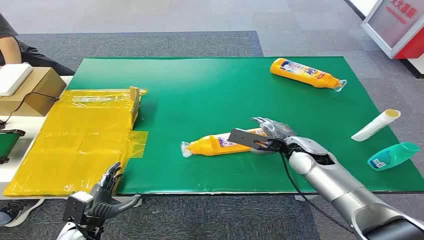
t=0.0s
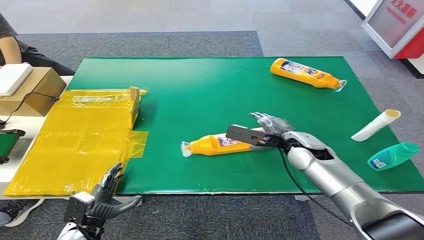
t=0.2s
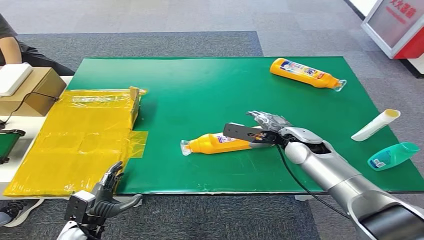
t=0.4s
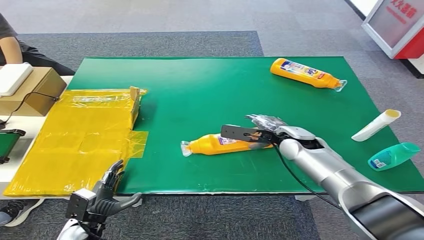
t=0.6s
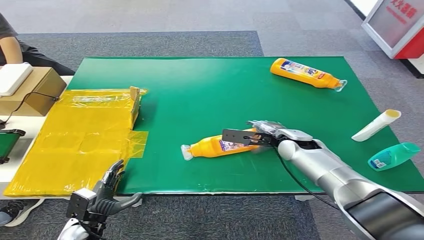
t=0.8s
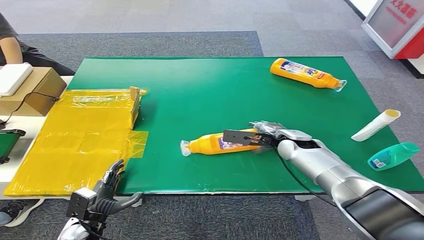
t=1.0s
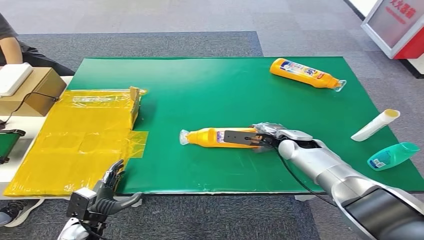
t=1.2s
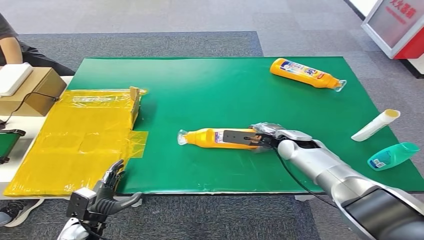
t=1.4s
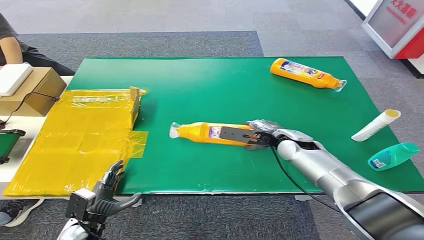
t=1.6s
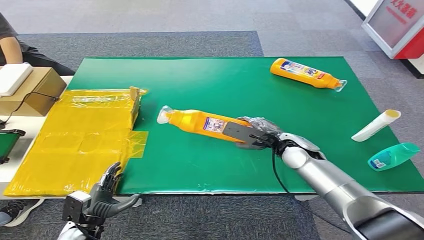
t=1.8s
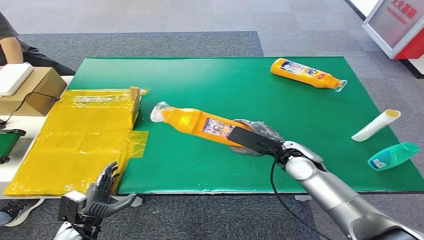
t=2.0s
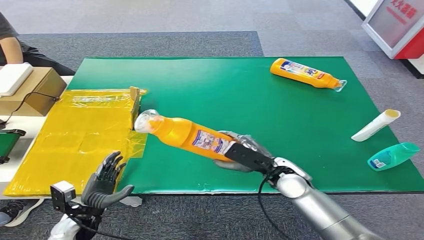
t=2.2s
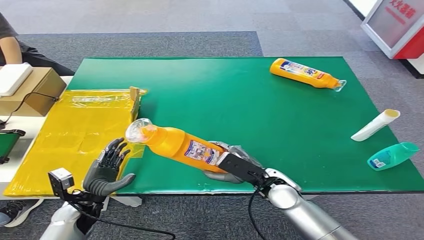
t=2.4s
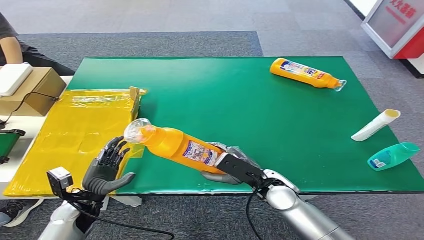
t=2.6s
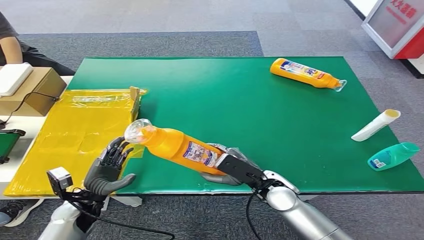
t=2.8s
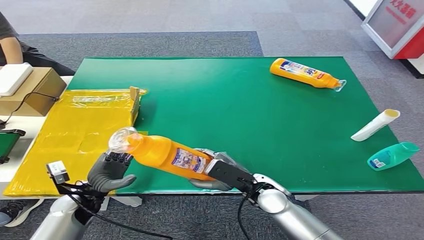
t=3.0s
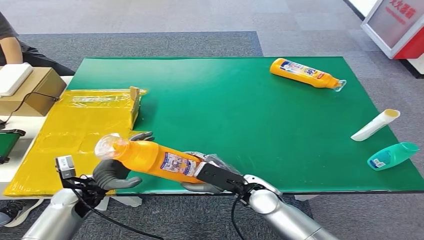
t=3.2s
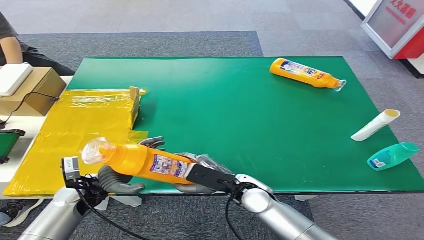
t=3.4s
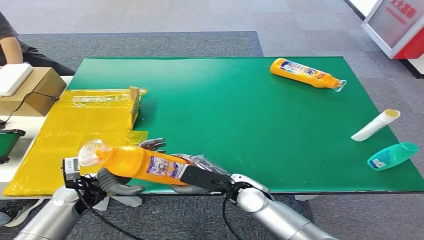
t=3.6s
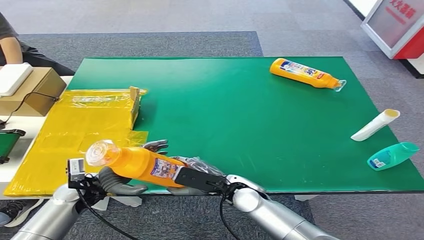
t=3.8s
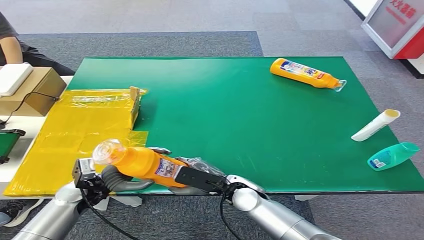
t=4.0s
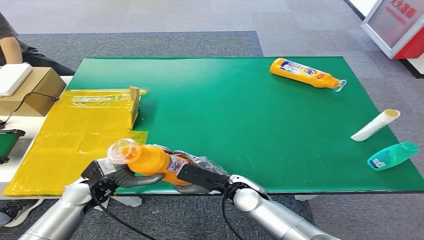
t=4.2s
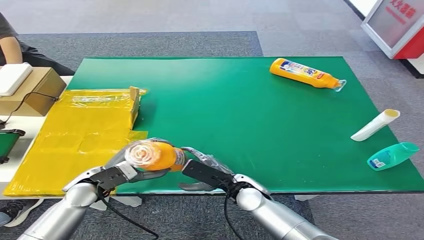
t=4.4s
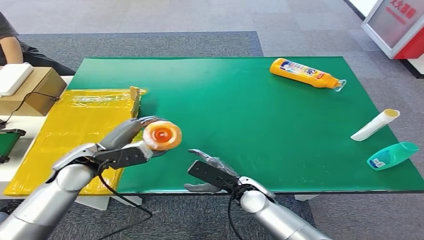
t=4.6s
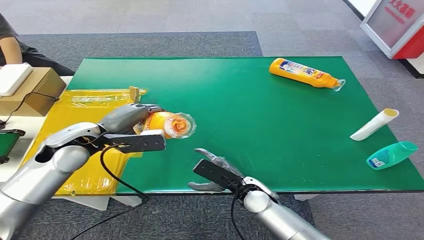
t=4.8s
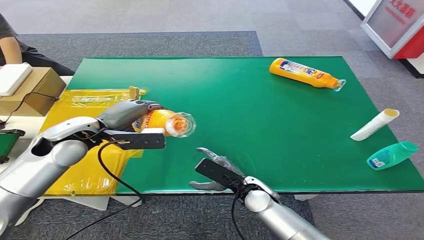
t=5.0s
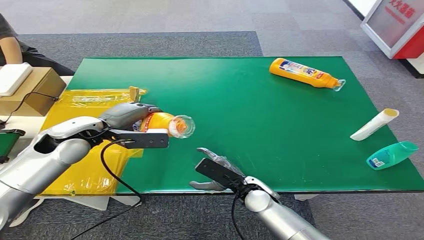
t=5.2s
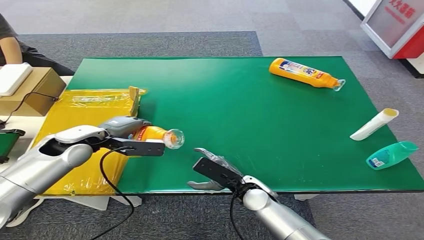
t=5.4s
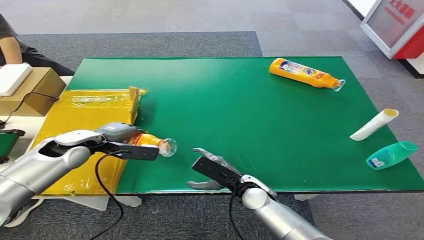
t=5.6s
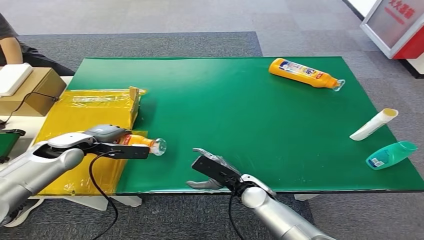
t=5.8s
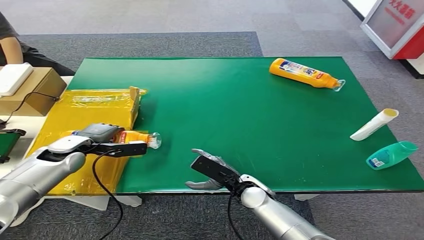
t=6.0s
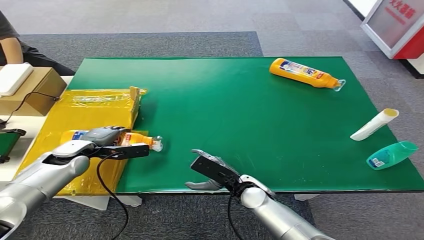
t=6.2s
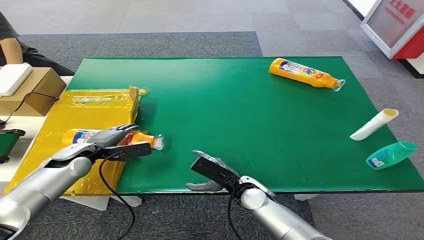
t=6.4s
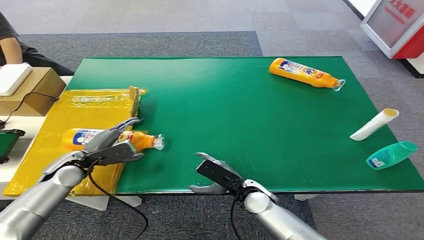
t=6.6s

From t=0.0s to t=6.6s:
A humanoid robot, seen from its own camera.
Step, from t=0.0s to t=2.2s: Pick up the bottle from the table.
Step, from t=2.4s to t=6.6s: Turn the bottle to the front side.
From t=1.6s to t=3.2s: The left hand heads upward and forward, covering roughly 15 cm, while the right hand travels backward and to the left by roughly 15 cm.
From t=3.2s to t=5.0s: The left hand heads upward and forward, covering roughly 20 cm.
From t=5.0s to t=6.6s: The left hand shifts some 15 cm downward and to the left.
